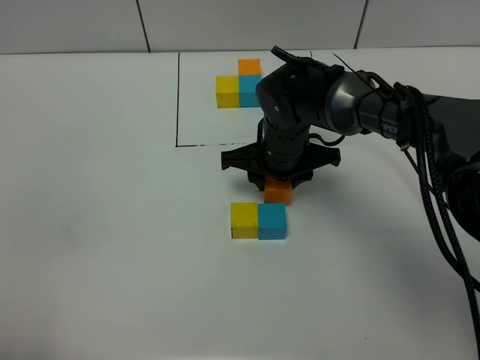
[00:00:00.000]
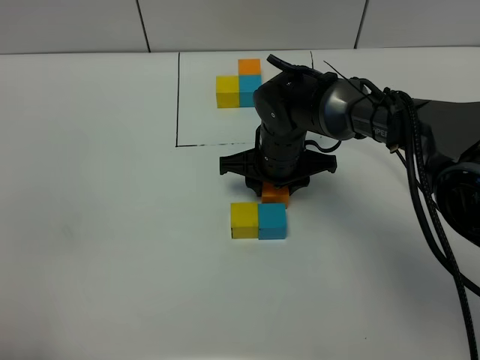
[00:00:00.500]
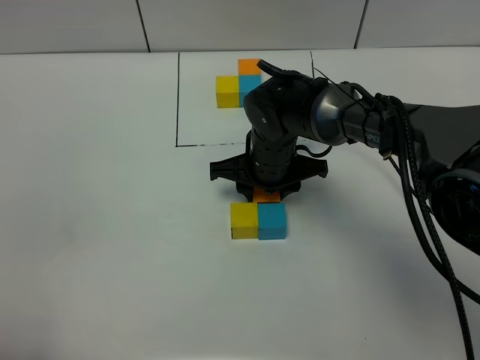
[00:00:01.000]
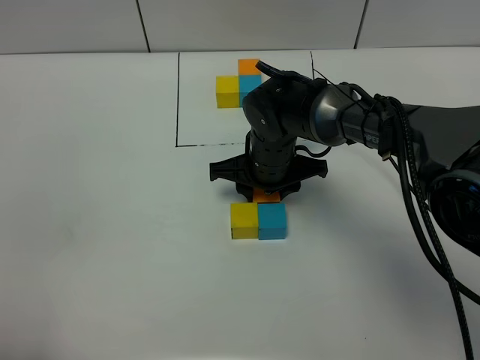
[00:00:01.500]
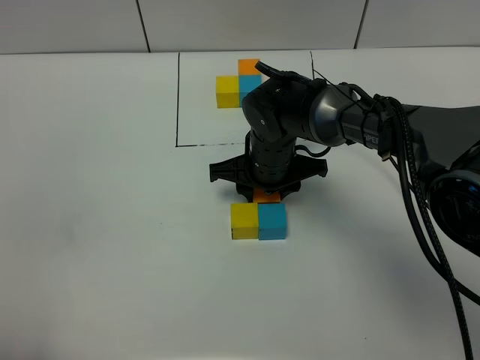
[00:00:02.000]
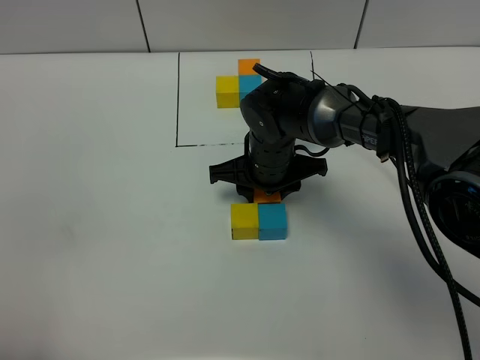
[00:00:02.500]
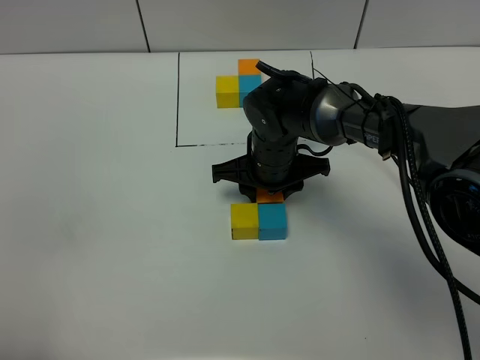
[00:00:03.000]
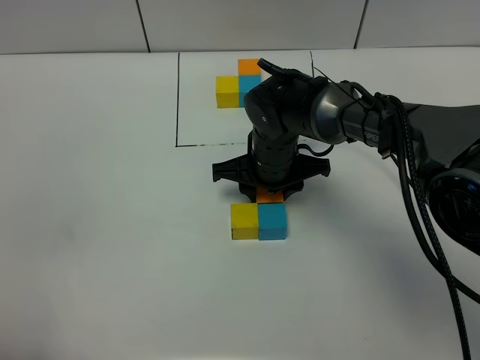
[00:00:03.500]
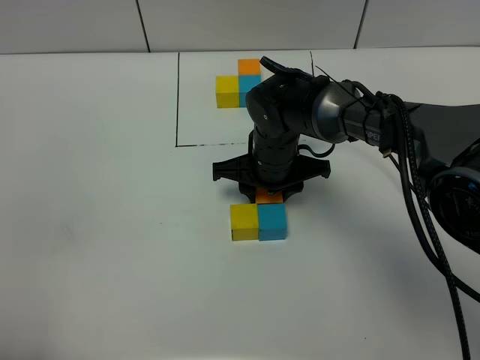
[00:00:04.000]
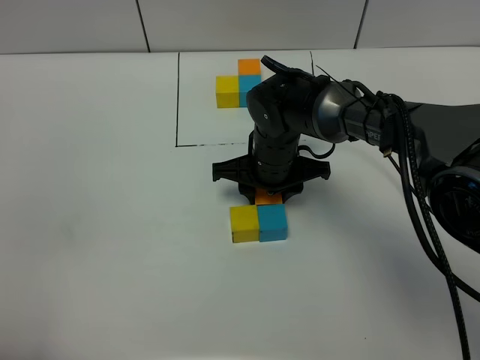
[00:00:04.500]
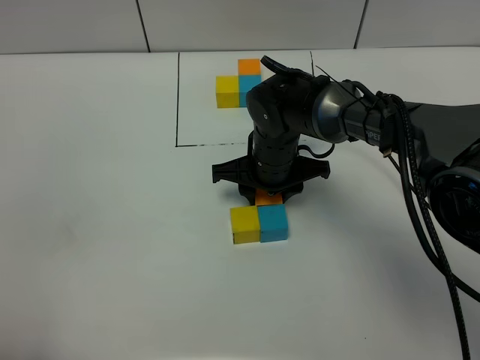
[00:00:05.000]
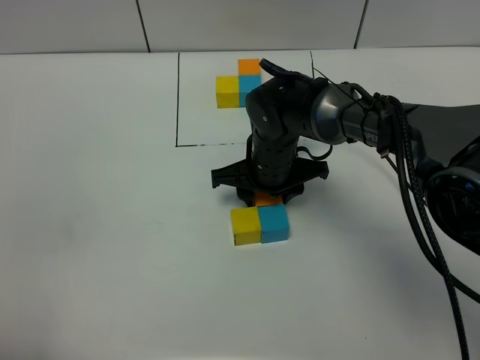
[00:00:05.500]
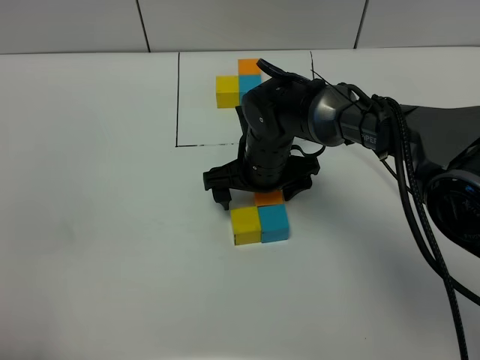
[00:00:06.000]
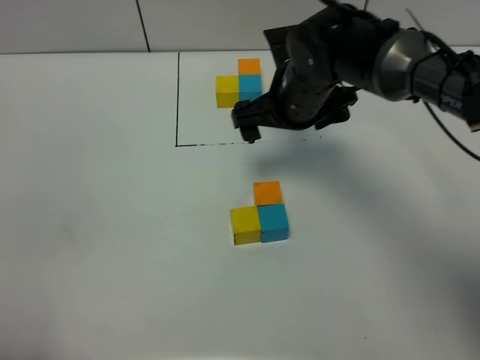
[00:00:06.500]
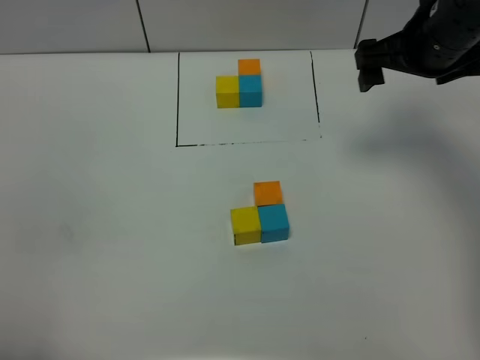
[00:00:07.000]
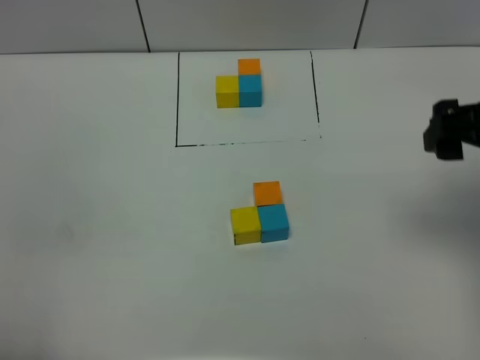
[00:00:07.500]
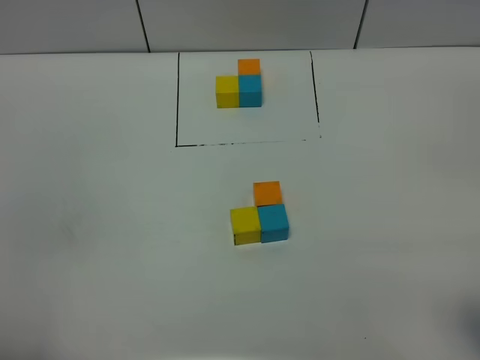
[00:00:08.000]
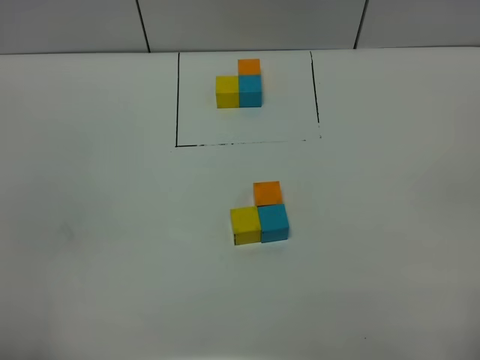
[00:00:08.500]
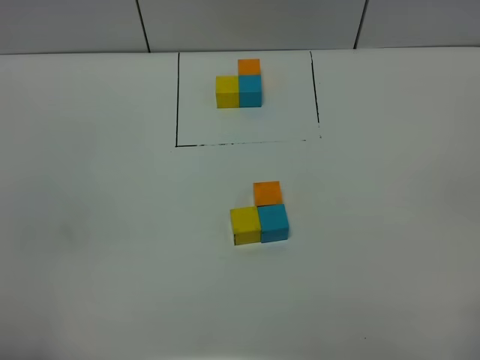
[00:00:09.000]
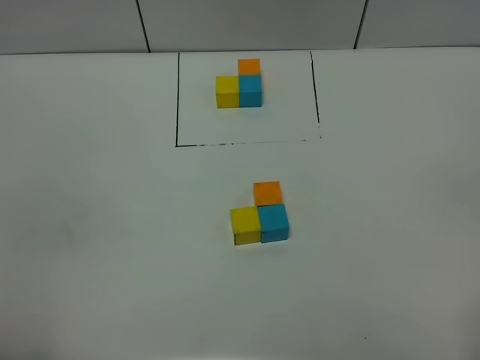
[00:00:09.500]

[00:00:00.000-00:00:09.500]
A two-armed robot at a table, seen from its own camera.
Task of the whole recording: According to the building block template in front, assemble the scattered blocks together.
Step, 00:00:00.000 to 00:00:05.500: Put the orange build block on the front of the blue build block.
00:00:00.000 to 00:00:02.000: The grippers move only a little.
00:00:02.000 to 00:00:05.500: Neither gripper changes place.
00:00:05.500 to 00:00:07.500: The right gripper heads to the right, upward and backward, covering roughly 35 cm, and opens its fingers.
00:00:07.500 to 00:00:09.500: The right gripper travels backward by roughly 25 cm.

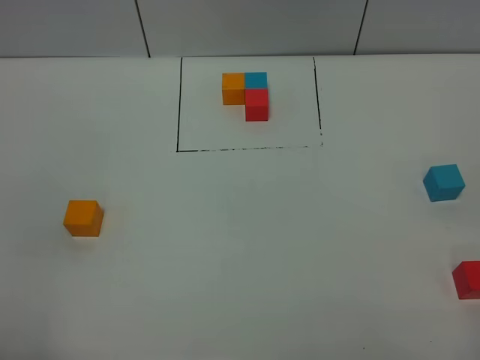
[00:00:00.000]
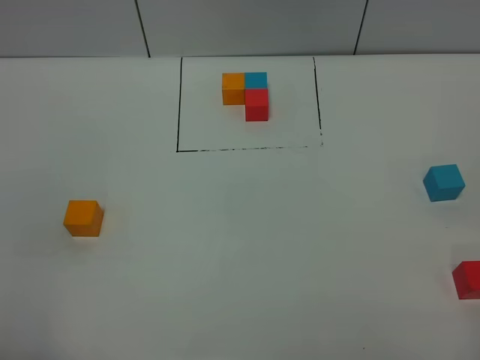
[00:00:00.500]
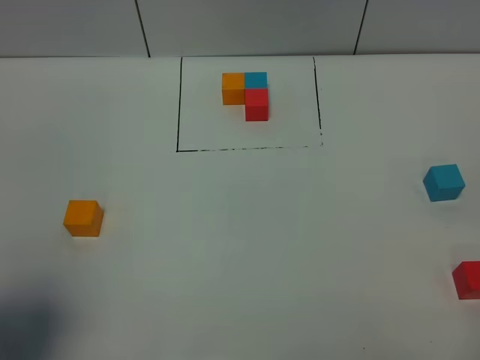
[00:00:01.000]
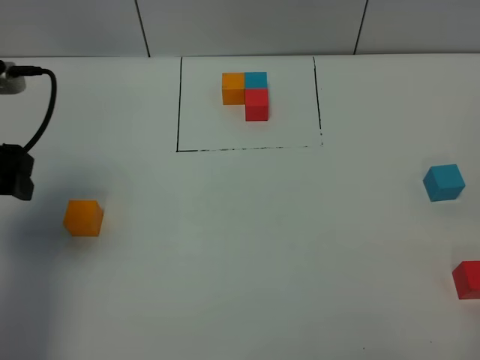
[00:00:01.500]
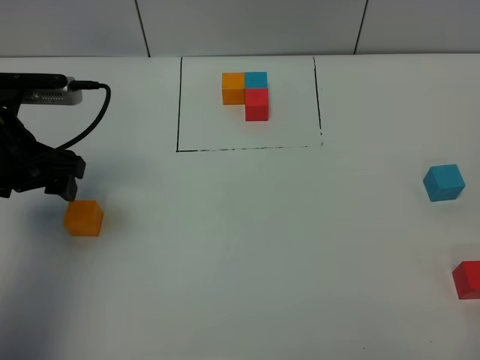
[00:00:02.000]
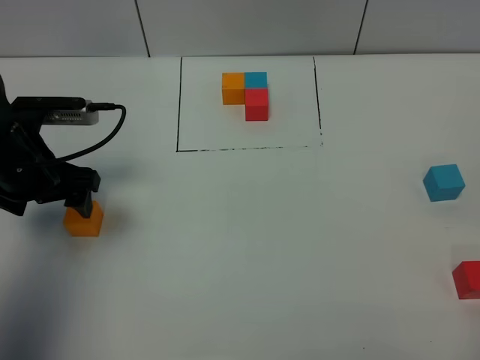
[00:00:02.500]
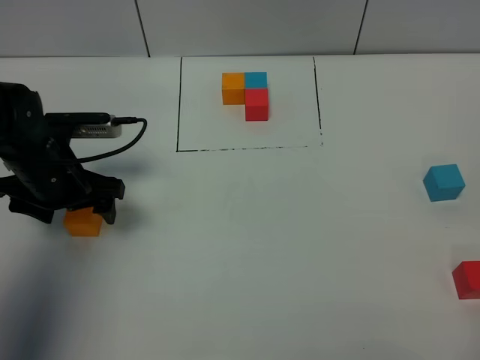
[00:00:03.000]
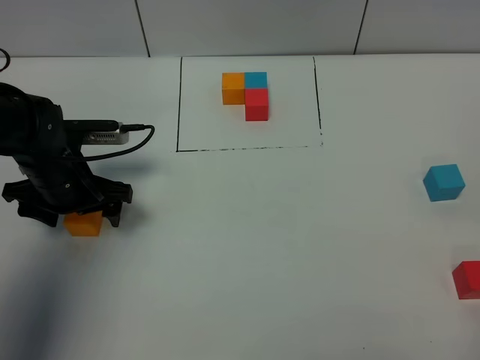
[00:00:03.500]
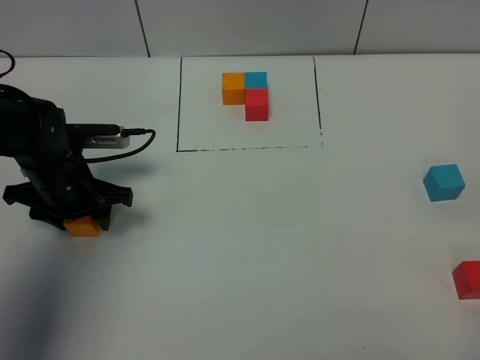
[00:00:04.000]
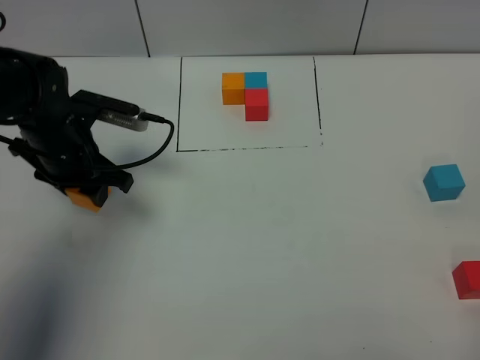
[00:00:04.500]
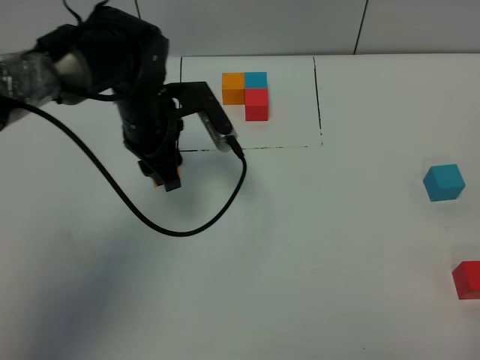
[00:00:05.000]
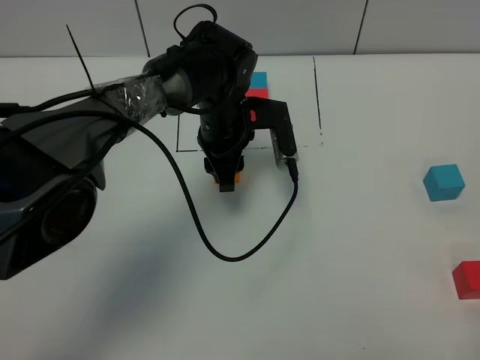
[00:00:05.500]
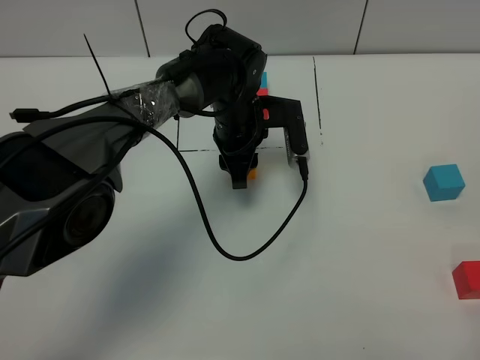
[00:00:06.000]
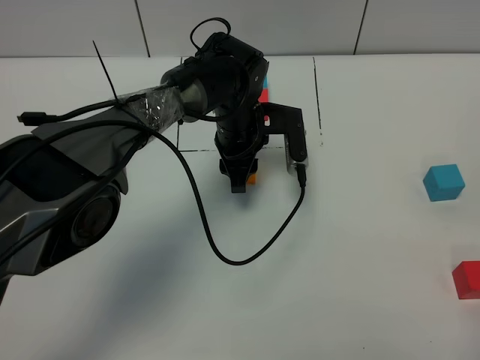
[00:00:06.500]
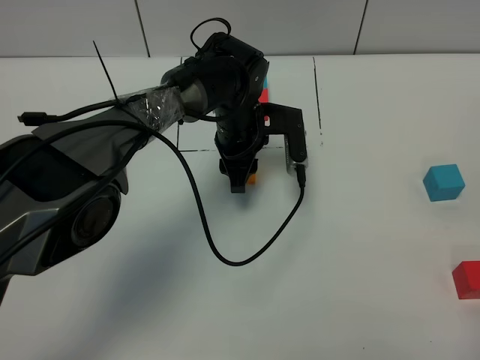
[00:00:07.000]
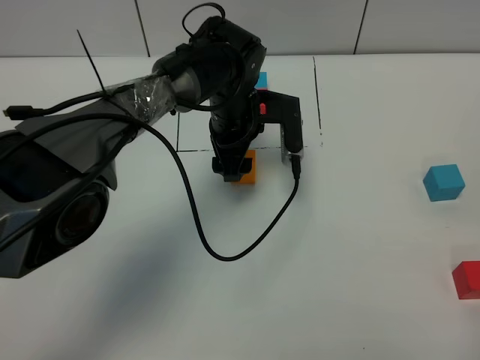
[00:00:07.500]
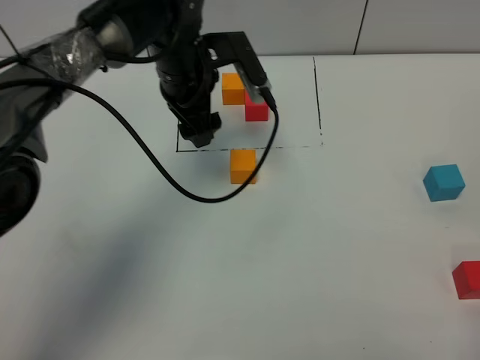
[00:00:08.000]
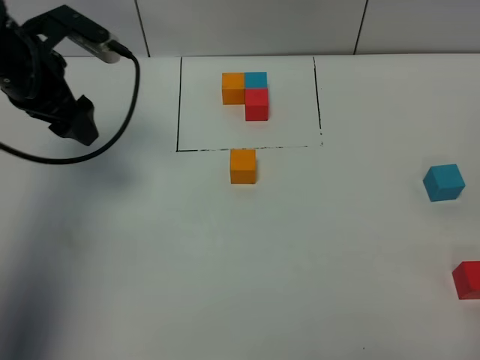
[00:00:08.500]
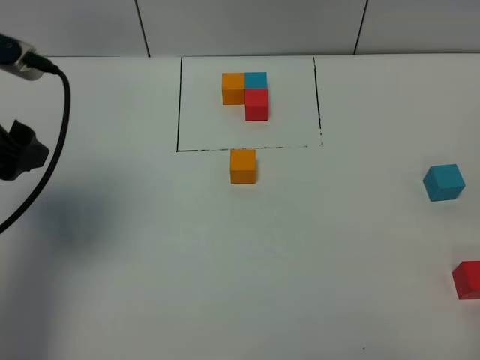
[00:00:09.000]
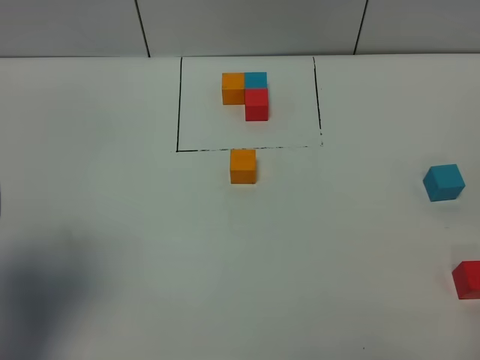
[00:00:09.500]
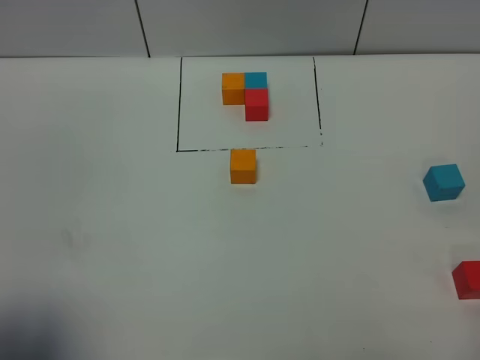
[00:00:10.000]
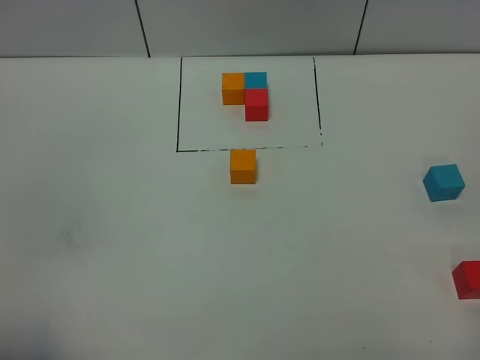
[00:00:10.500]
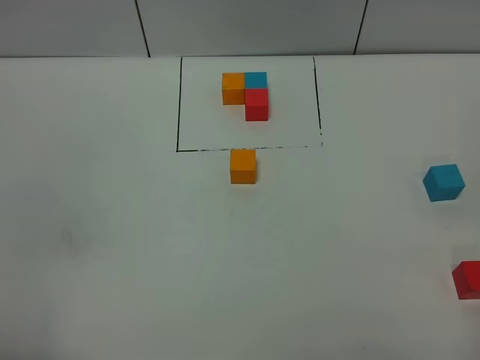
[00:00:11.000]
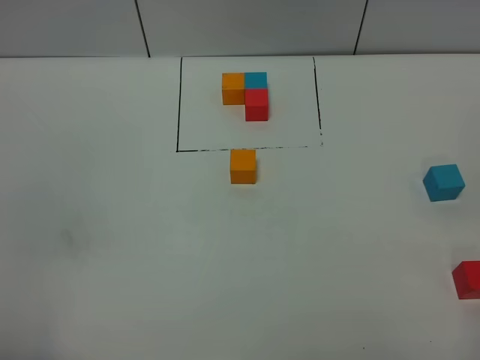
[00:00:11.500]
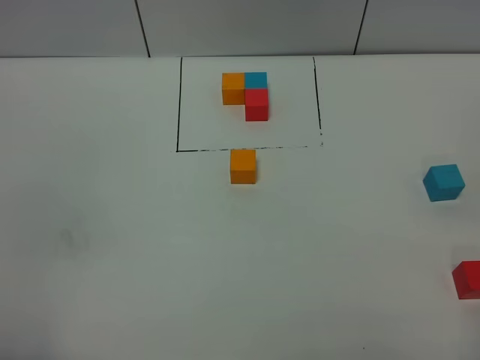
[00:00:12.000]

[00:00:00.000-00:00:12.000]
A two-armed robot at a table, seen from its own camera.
Task of the whole recording: According to the building block template in front, assemble the scattered blocks together.
Step, 00:00:00.000 to 00:00:07.000: Put the orange build block in the center of the table.
00:00:00.000 to 00:00:02.000: The left gripper heads forward, covering about 30 cm.
00:00:02.000 to 00:00:04.000: The left gripper is displaced downward by roughly 10 cm, and closes its fingers.
00:00:04.000 to 00:00:06.000: The left gripper heads to the right, covering approximately 25 cm.
00:00:06.000 to 00:00:08.000: The left gripper goes some 10 cm upward and to the left, and opens its fingers.
00:00:08.000 to 00:00:10.000: The left gripper is displaced backward and to the left by some 40 cm.
00:00:10.000 to 00:00:12.000: The left gripper moves backward, approximately 5 cm.

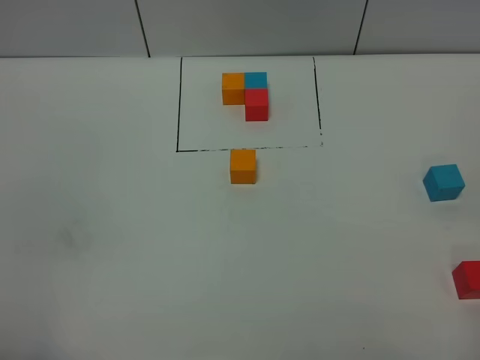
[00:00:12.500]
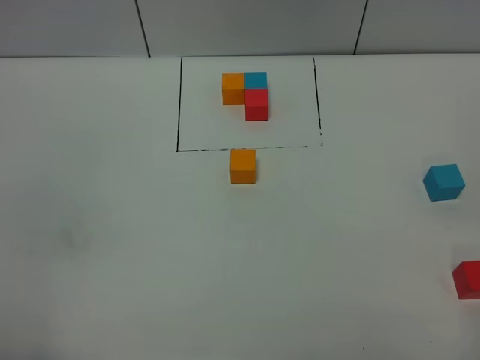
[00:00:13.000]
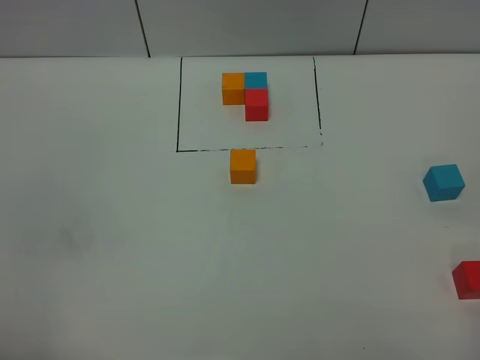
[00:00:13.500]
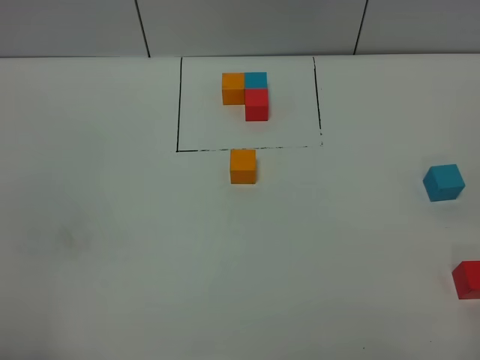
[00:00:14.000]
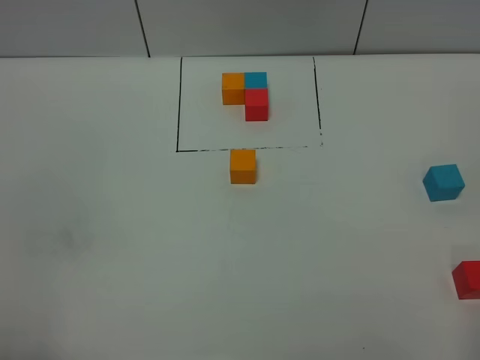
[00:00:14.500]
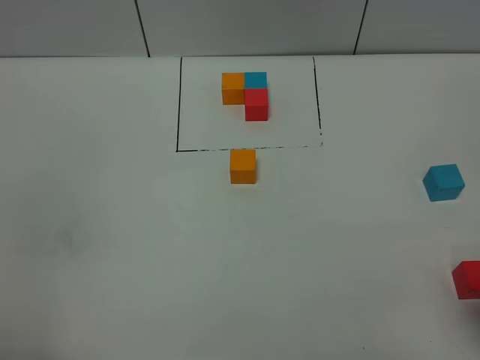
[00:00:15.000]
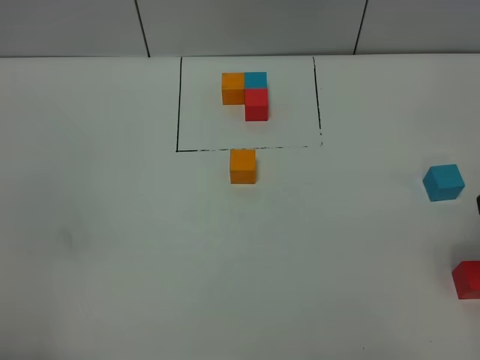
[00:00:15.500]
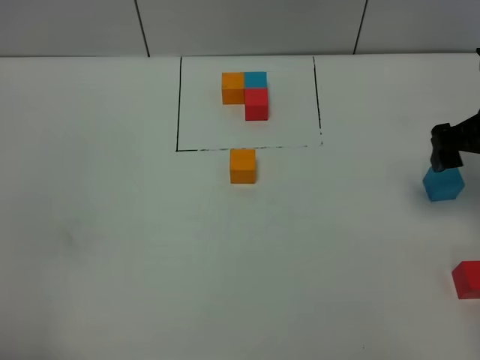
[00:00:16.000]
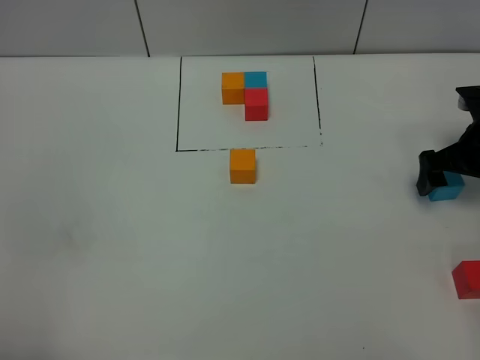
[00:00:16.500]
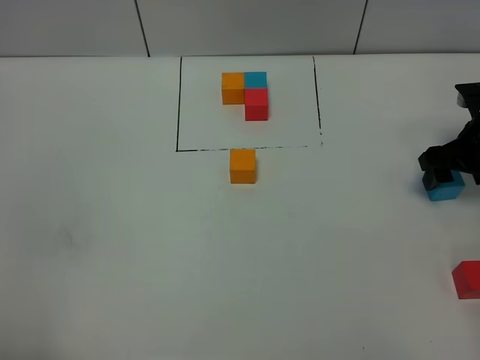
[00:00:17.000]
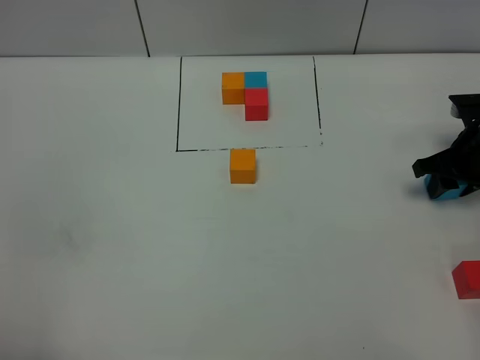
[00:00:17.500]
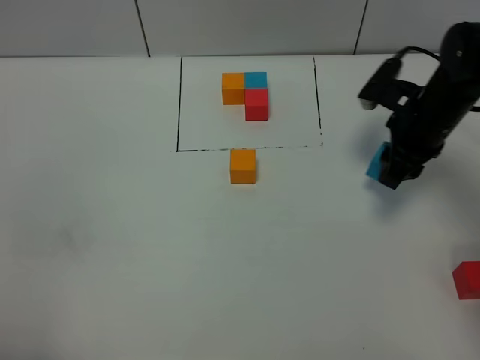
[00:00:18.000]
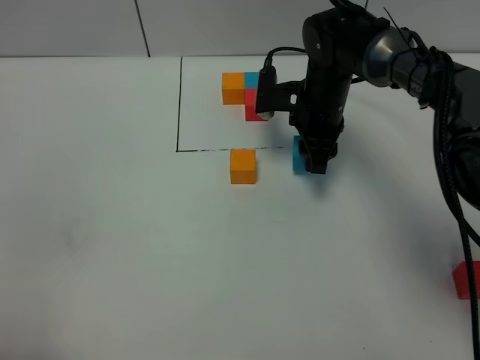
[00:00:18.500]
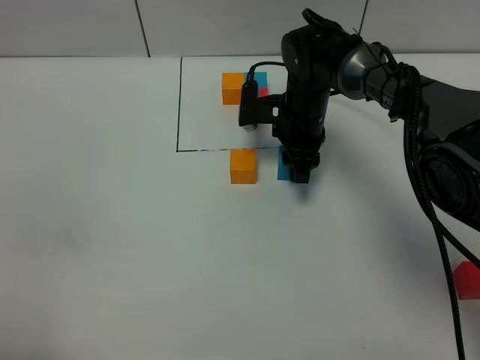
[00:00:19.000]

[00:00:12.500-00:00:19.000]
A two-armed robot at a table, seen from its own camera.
Task of the whole recording: According to the building block template in front, assemble the scattered blocks together.
00:00:14.500 to 00:00:17.000: The right gripper shifts approximately 35 cm forward and downward.
00:00:17.000 to 00:00:19.000: The right gripper is displaced to the left by roughly 25 cm, and closes its fingers.
